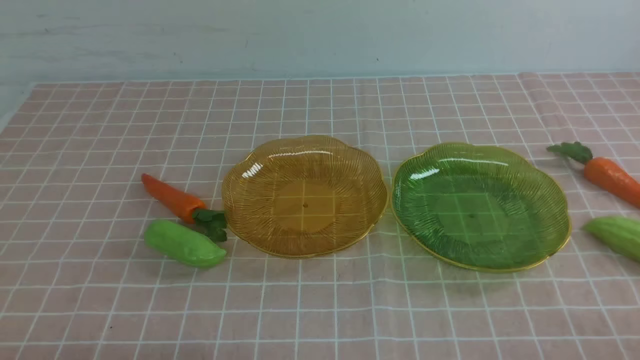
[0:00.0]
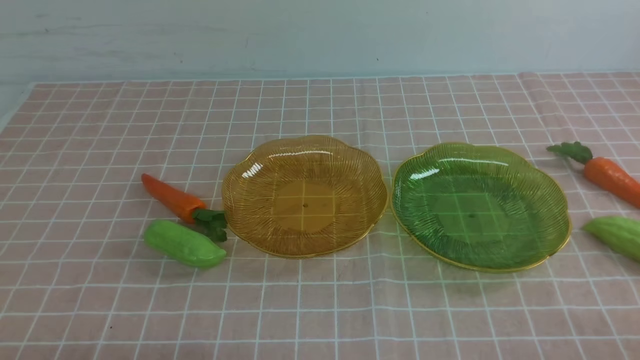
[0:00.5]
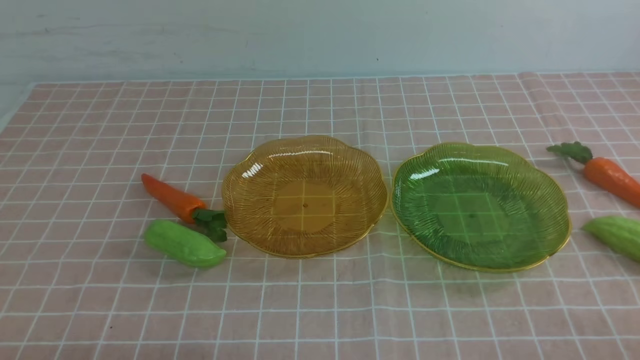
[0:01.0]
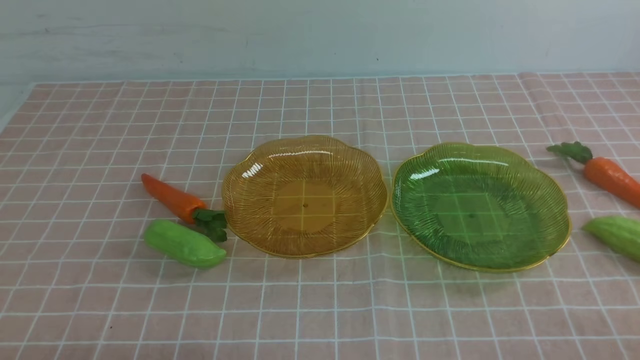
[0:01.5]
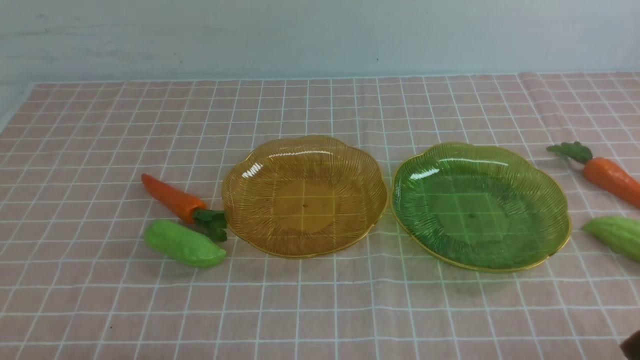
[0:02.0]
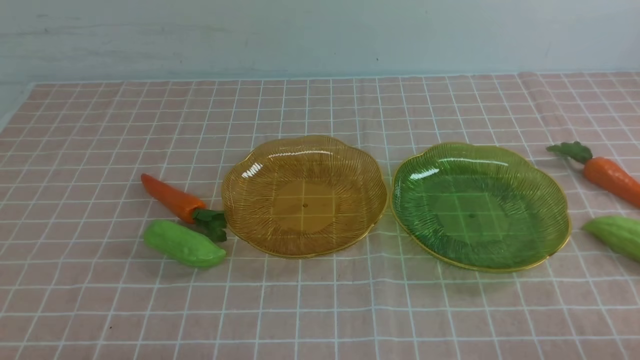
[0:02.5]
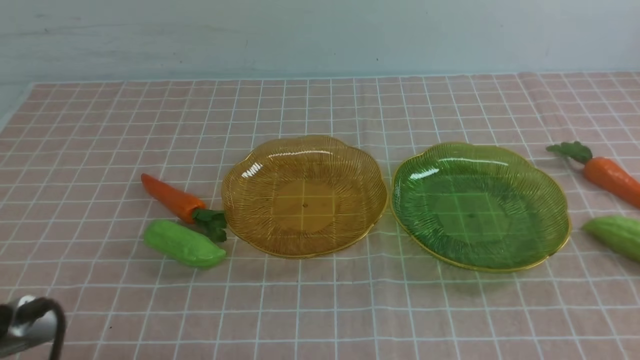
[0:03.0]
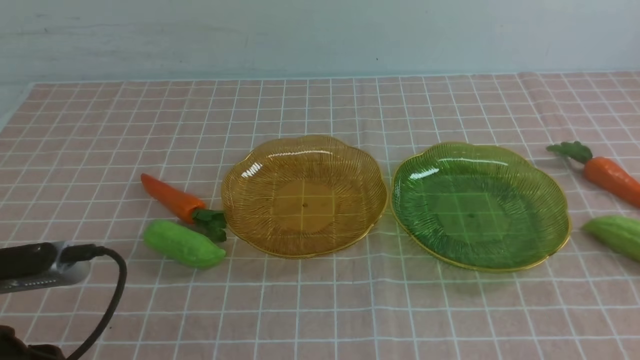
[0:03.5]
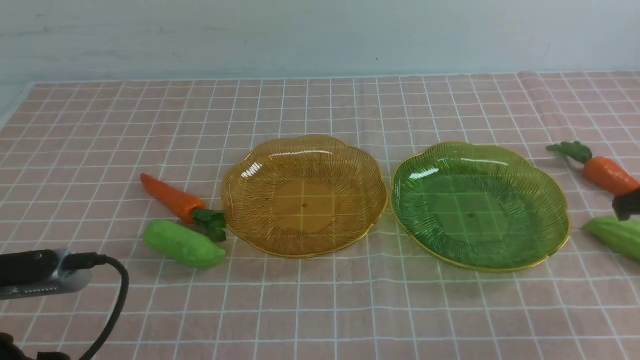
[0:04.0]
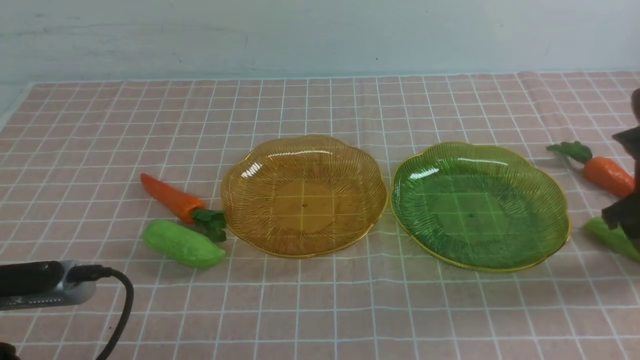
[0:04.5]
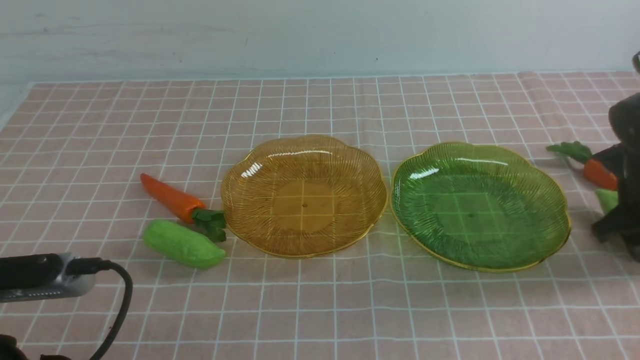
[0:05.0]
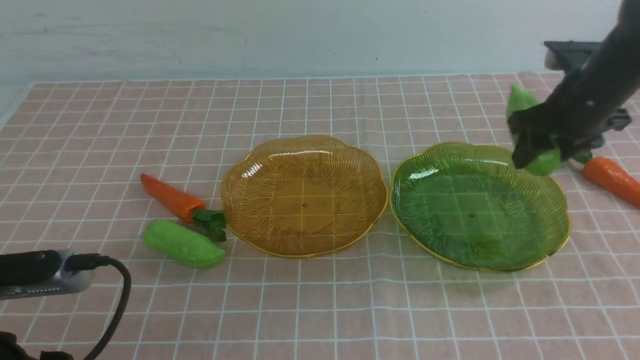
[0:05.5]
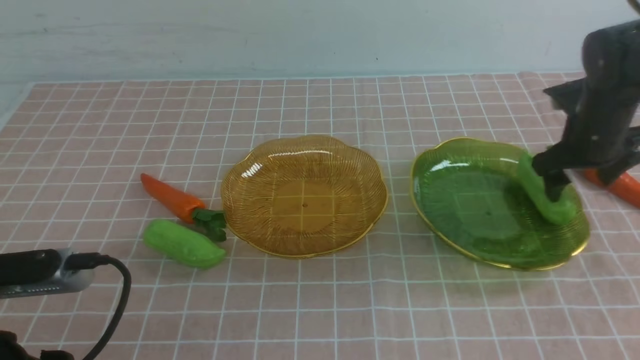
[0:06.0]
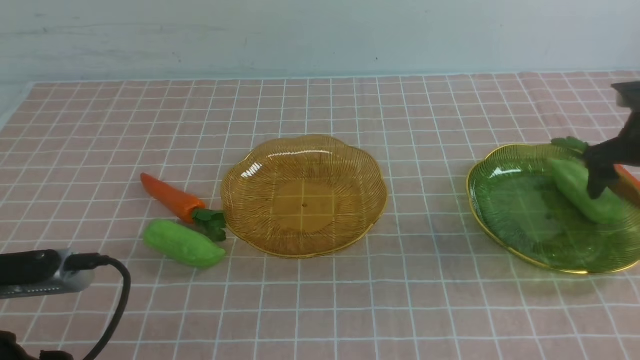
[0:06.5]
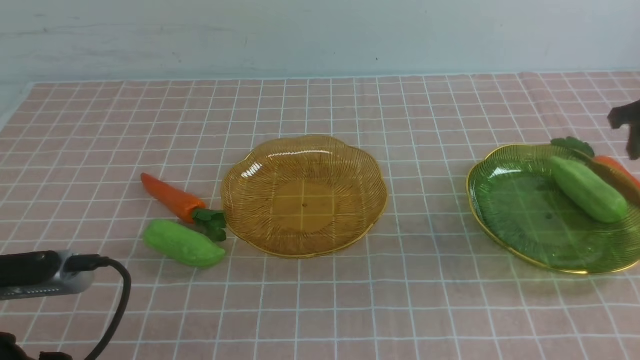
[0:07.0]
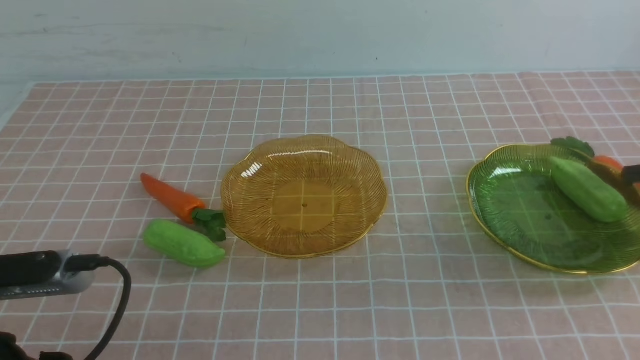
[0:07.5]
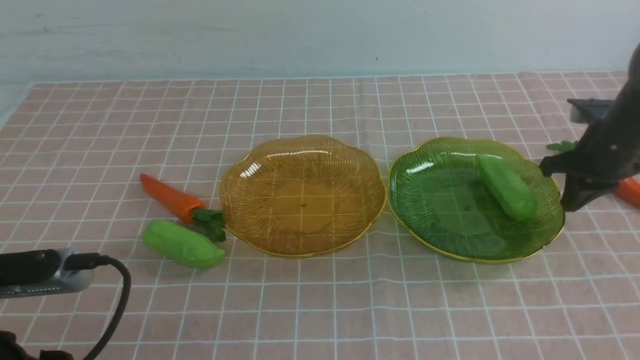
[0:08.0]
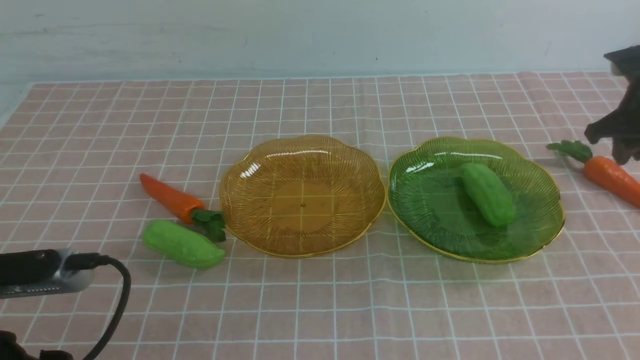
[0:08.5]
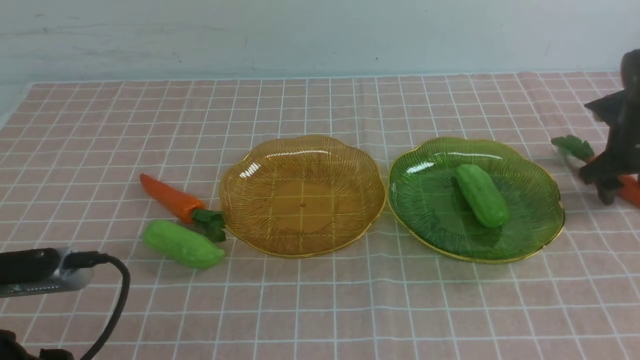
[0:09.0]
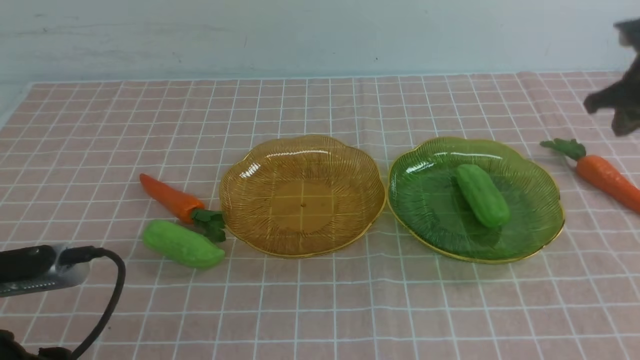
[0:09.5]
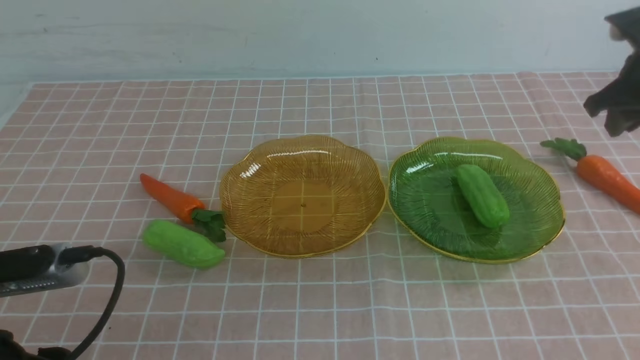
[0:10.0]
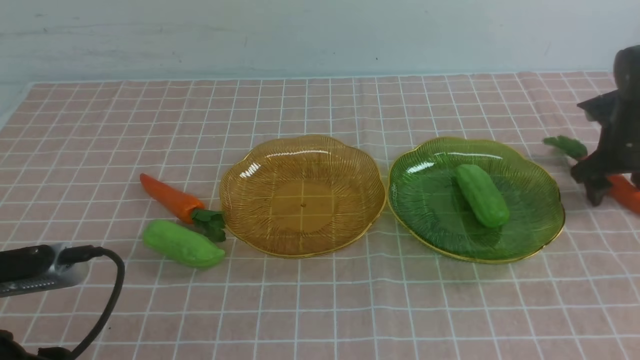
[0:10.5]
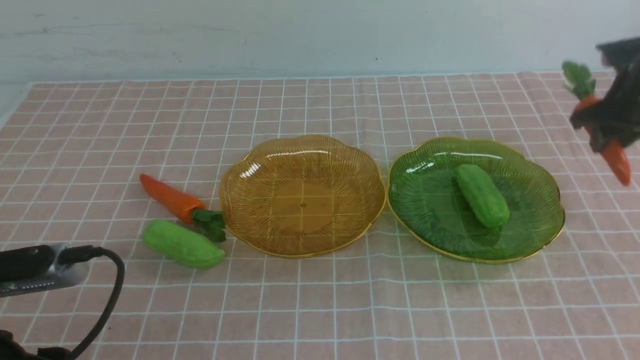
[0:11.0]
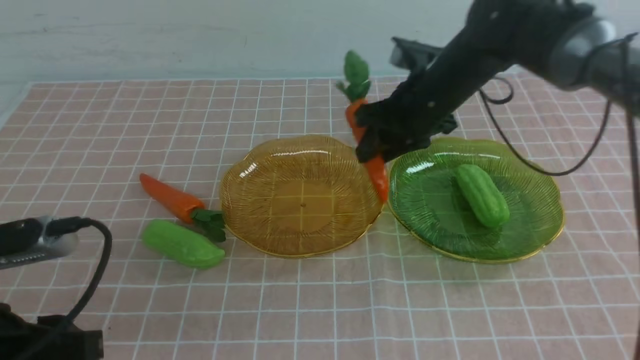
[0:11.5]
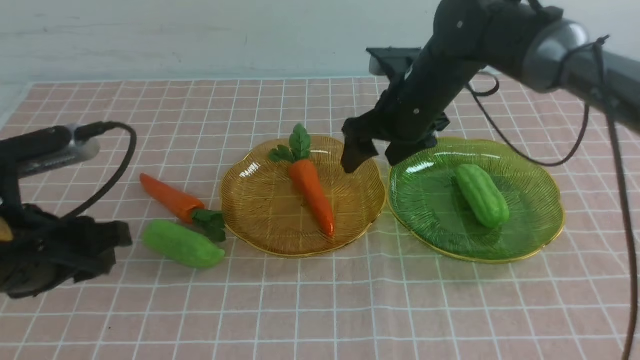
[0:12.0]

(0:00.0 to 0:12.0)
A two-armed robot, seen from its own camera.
Step, 0:00.0 - 0:05.5: use the right arm to grab a chayote and put it into the right plate.
Step, 0:06.0 - 0:11.5: use the right arm to grab a carrot and put it into the left plate.
0:02.0 - 0:04.0: The left gripper heads upward and forward, covering roughly 10 cm, and opens up.
0:04.0 - 0:06.0: The right gripper travels forward and downward by roughly 15 cm, and opens its fingers.
0:06.0 - 0:08.0: The right gripper moves approximately 10 cm to the right and comes back, and closes up.
0:08.0 - 0:10.0: The right gripper moves upward, some 5 cm, and opens its fingers.
0:10.0 - 0:12.0: The right gripper moves to the left, approximately 25 cm, and opens. The left gripper travels forward by about 10 cm.

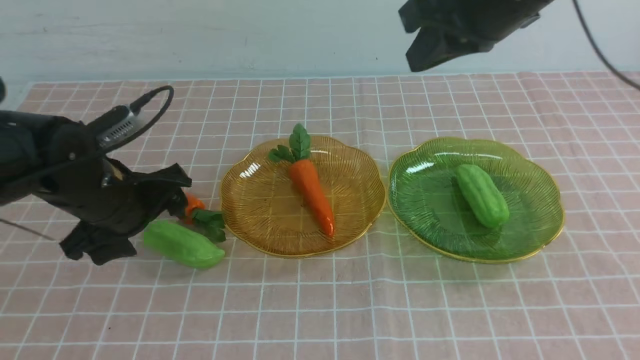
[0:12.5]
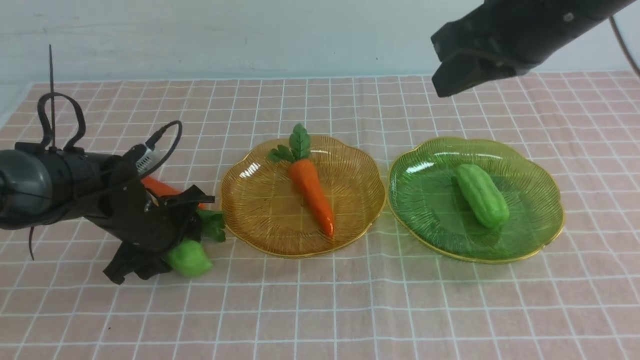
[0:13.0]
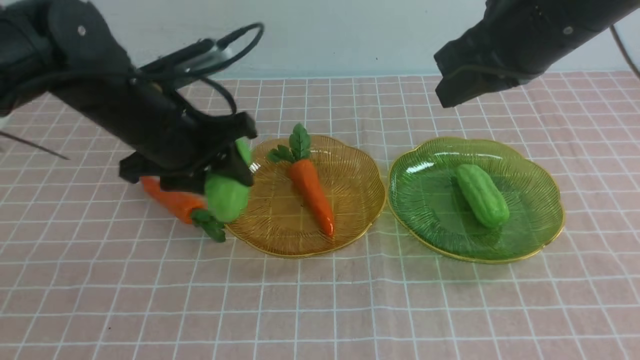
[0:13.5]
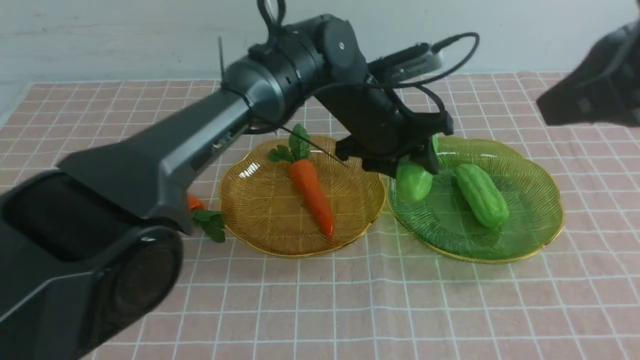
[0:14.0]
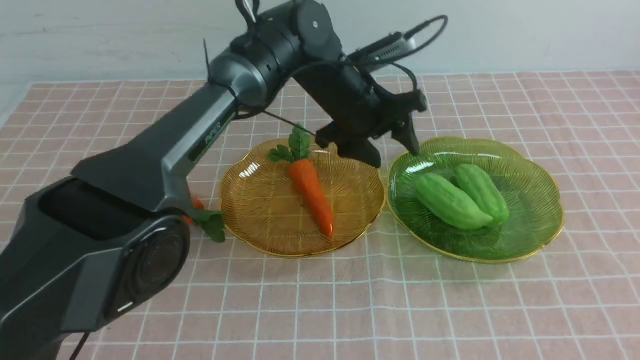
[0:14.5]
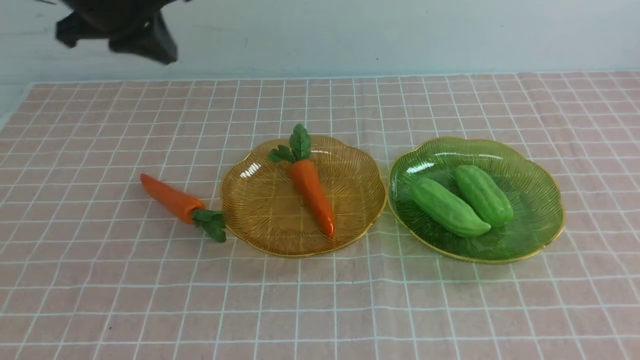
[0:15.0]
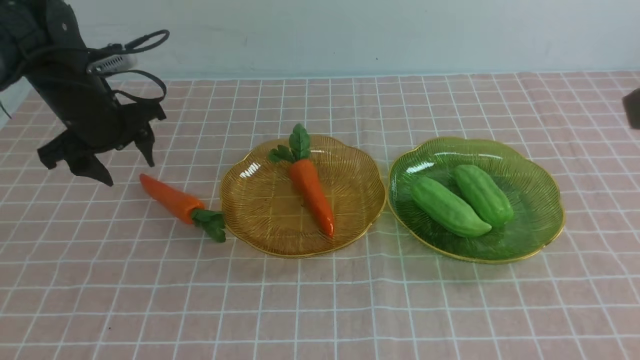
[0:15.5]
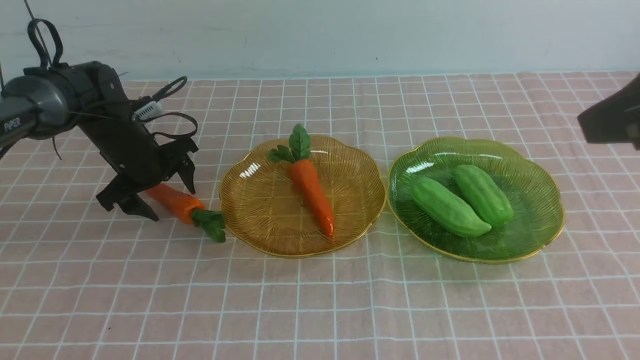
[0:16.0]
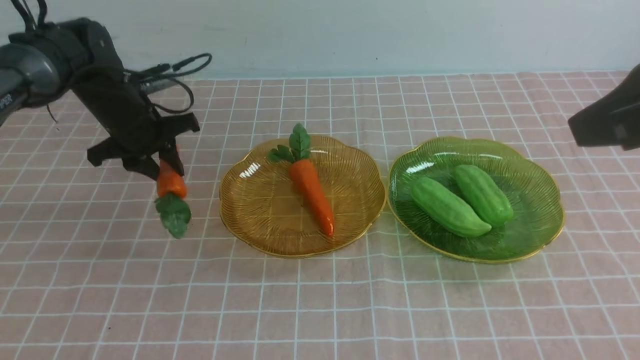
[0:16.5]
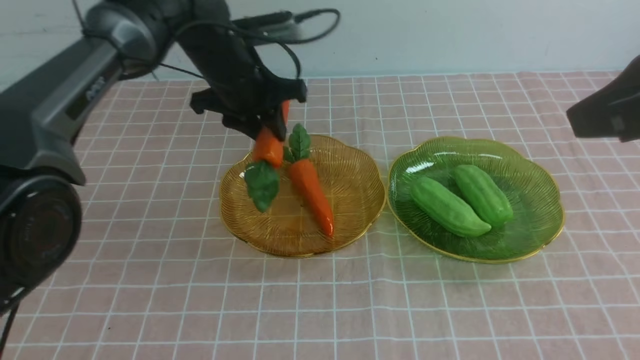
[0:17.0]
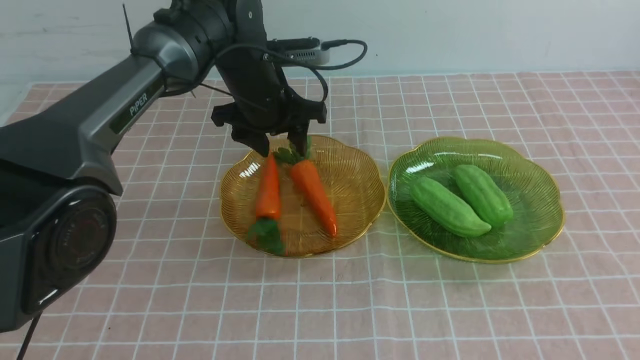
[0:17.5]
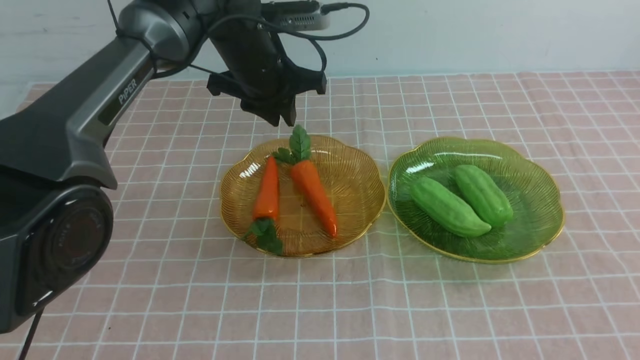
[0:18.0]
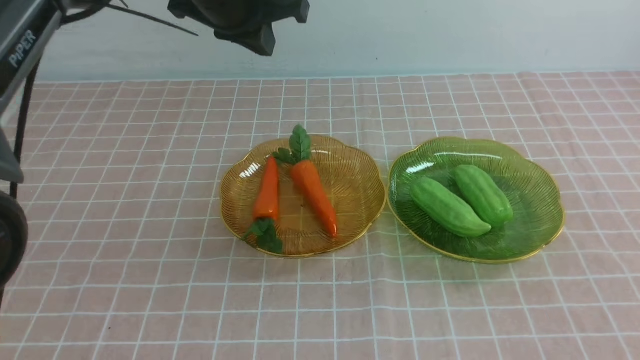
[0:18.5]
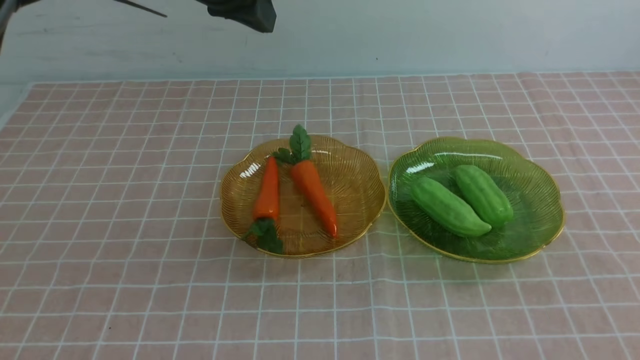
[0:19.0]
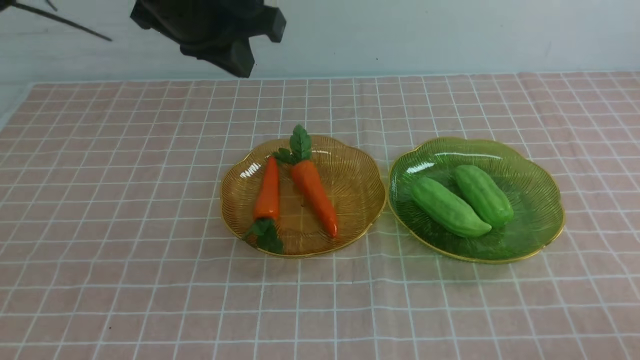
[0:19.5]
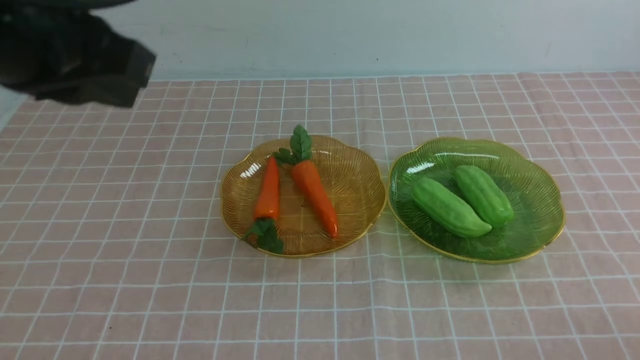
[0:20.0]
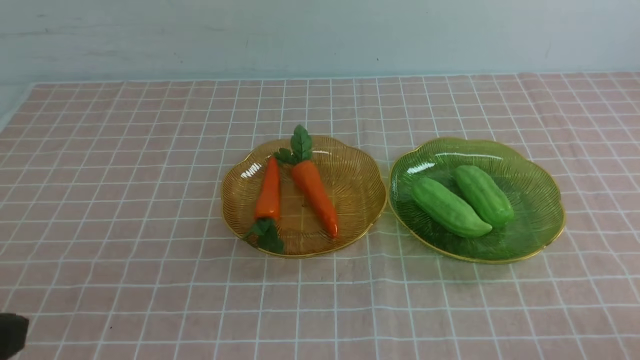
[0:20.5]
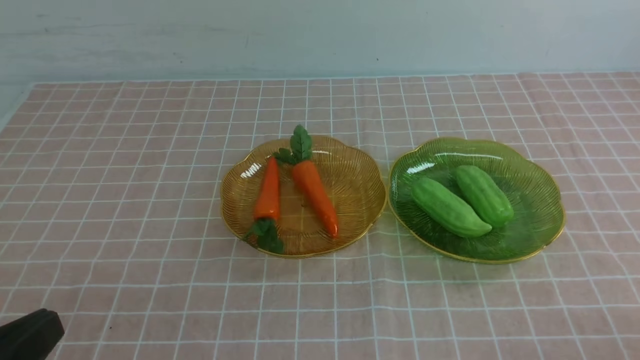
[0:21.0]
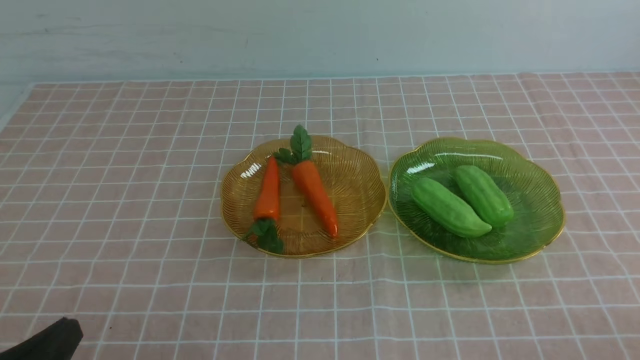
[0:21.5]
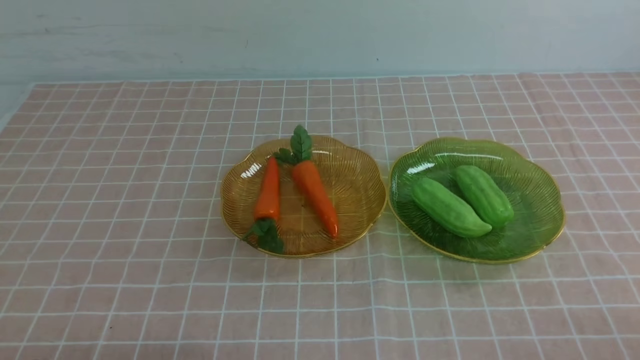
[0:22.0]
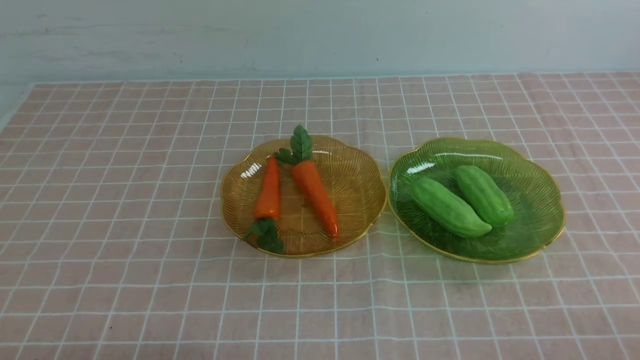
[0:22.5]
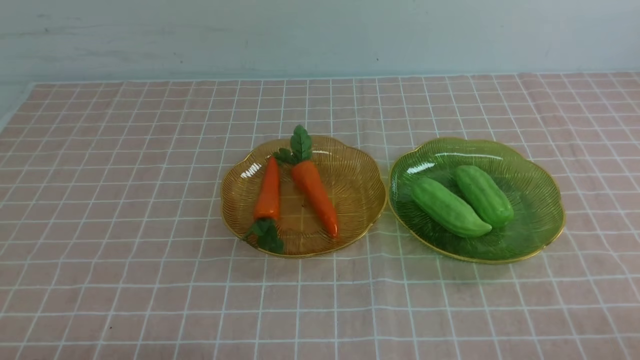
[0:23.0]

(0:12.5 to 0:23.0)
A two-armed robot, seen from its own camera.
Step, 0:12.5 - 0:14.0: use the left arm to grab a chayote and put it into the right plate.
Step, 0:14.5 - 0:17.0: use the left arm to grab a carrot and put it into the left plate.
0:12.5 - 0:14.5: The right gripper is displaced backward and to the right by approximately 20 cm. The left gripper heads to the right and forward, covering approximately 25 cm.
0:14.5 - 0:16.5: The left gripper shifts about 25 cm to the left, and closes; the right gripper ends up about 5 cm from where it was.
0:16.5 - 0:19.0: The right gripper is displaced downward, backward and to the right by about 15 cm. Meanwhile the left gripper goes roughly 20 cm upward, to the right and backward, and closes up.
0:19.0 - 0:21.0: The right gripper heads downward, covering approximately 15 cm; the left gripper moves backward, approximately 35 cm.
0:21.0 - 0:23.0: The left gripper is displaced downward by about 10 cm.
